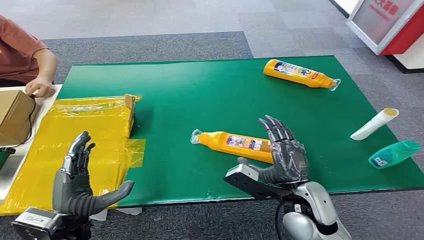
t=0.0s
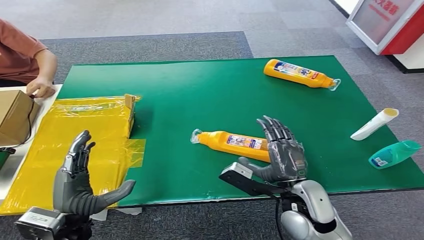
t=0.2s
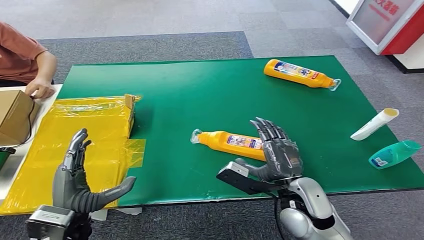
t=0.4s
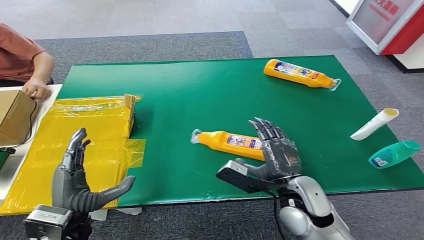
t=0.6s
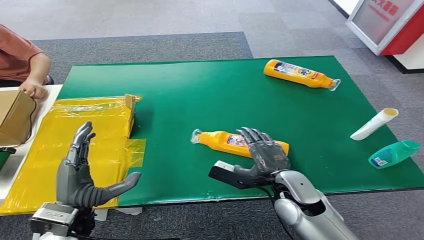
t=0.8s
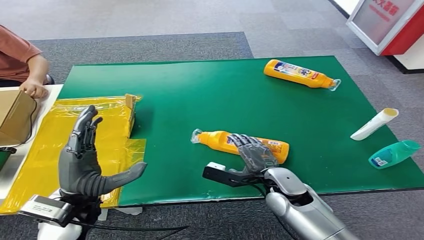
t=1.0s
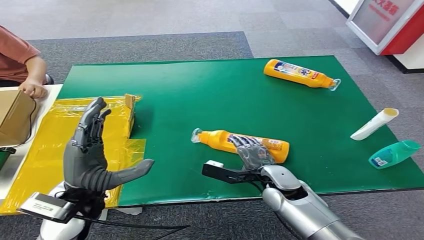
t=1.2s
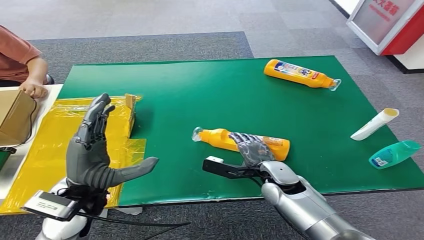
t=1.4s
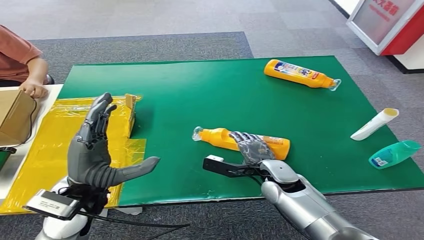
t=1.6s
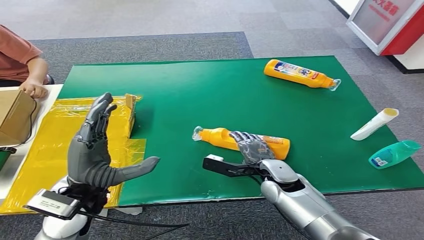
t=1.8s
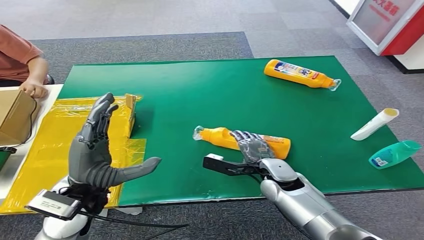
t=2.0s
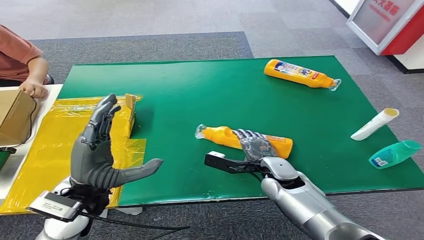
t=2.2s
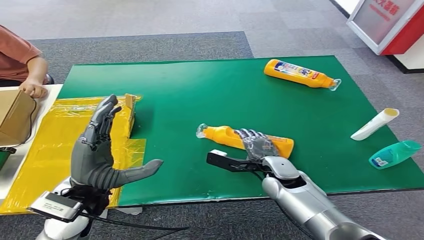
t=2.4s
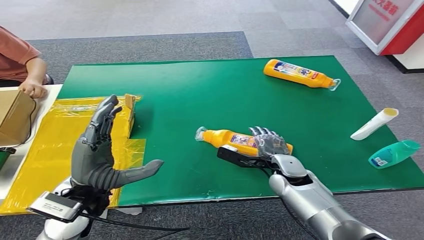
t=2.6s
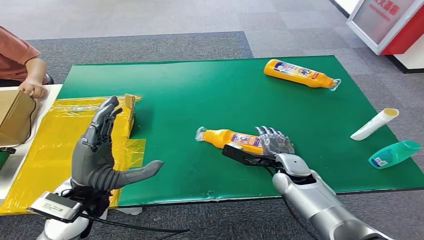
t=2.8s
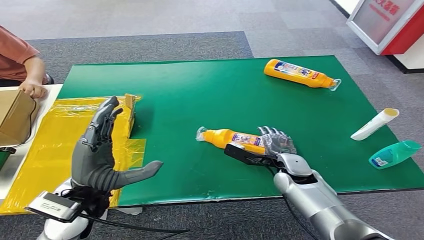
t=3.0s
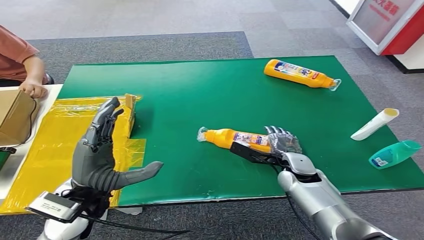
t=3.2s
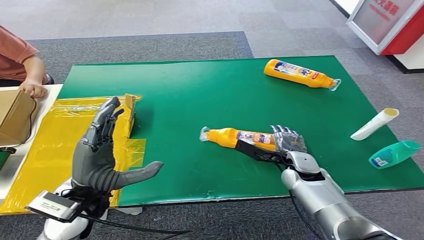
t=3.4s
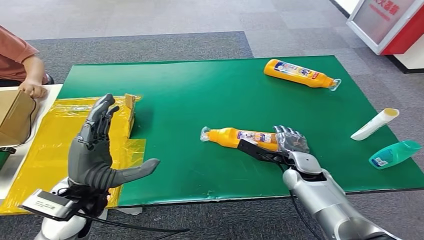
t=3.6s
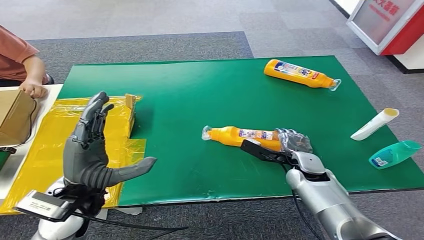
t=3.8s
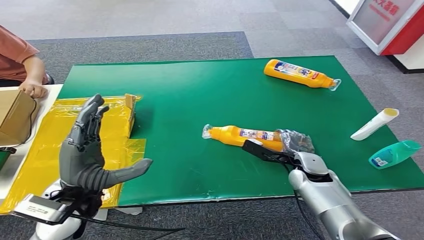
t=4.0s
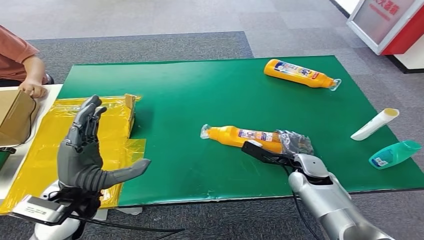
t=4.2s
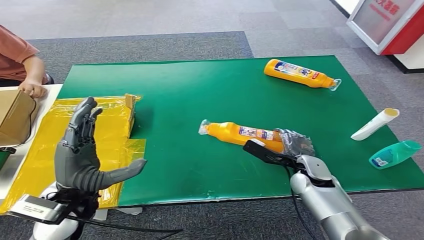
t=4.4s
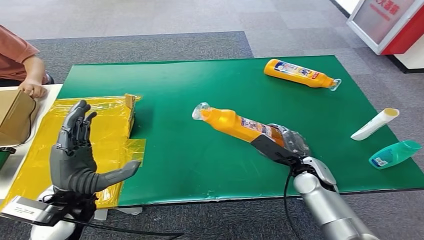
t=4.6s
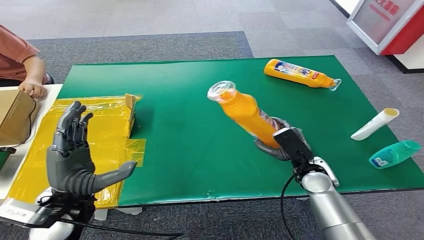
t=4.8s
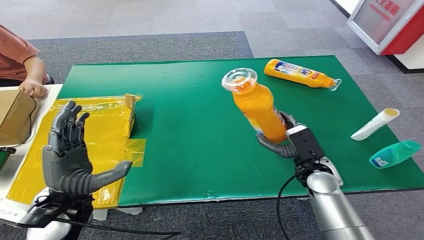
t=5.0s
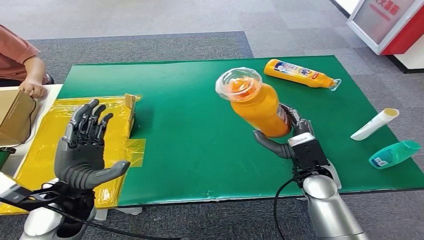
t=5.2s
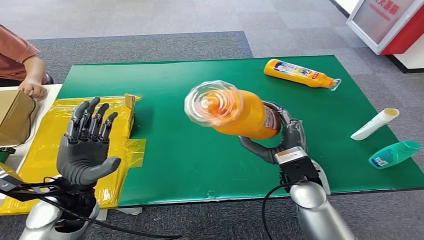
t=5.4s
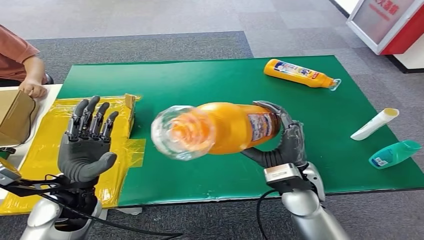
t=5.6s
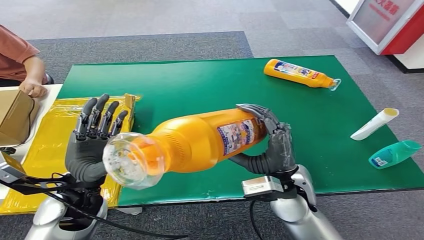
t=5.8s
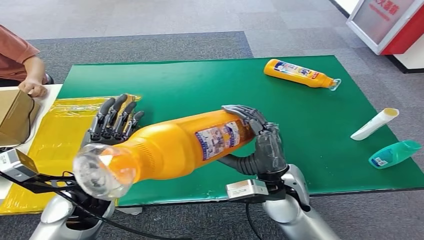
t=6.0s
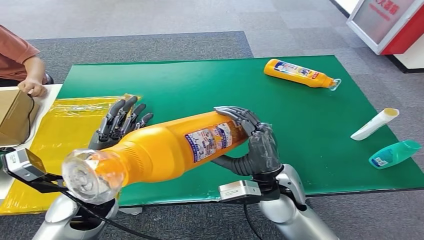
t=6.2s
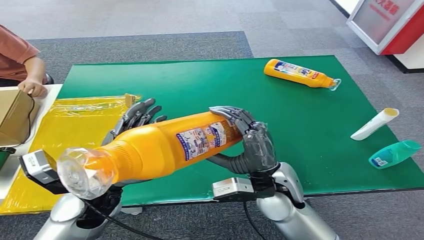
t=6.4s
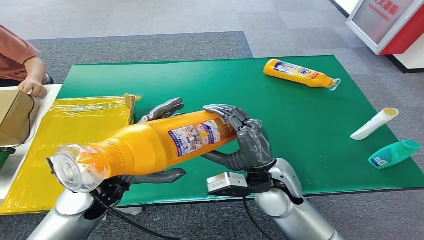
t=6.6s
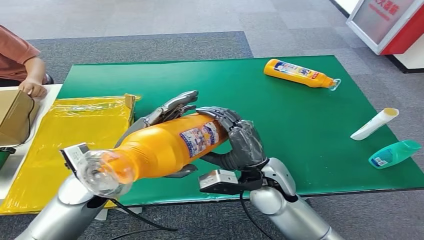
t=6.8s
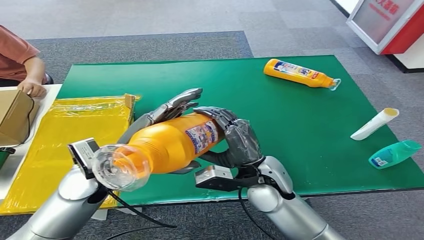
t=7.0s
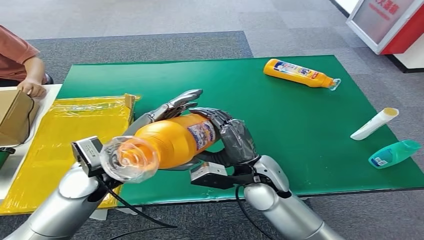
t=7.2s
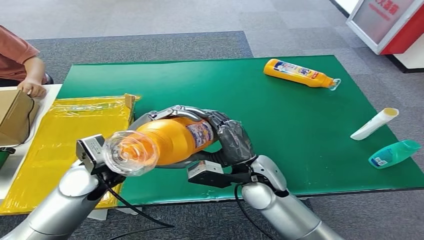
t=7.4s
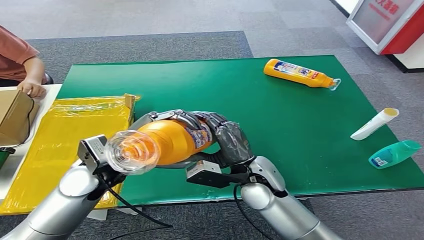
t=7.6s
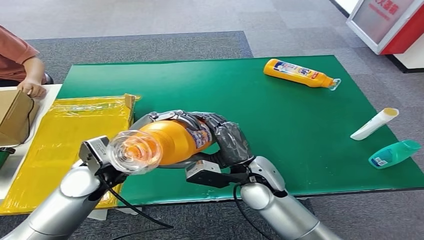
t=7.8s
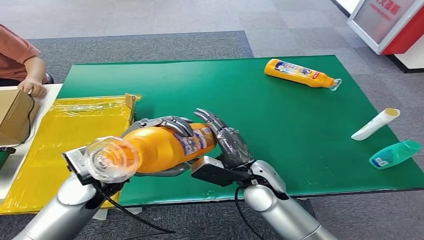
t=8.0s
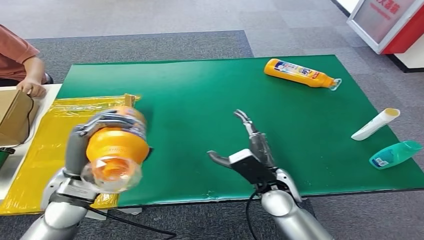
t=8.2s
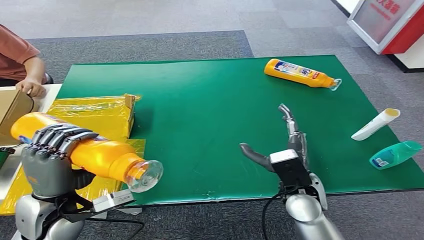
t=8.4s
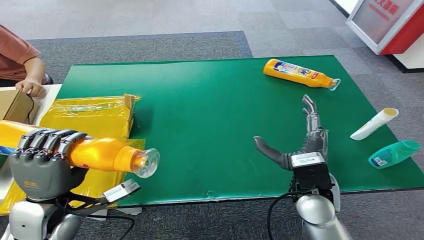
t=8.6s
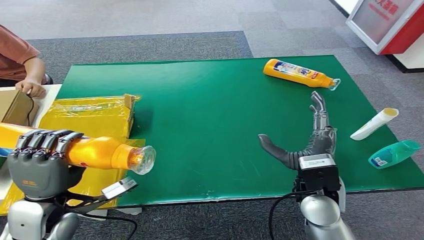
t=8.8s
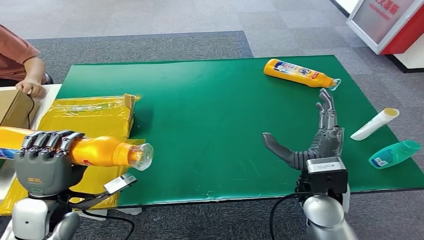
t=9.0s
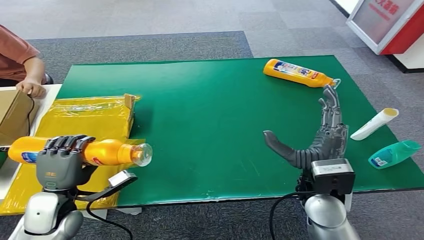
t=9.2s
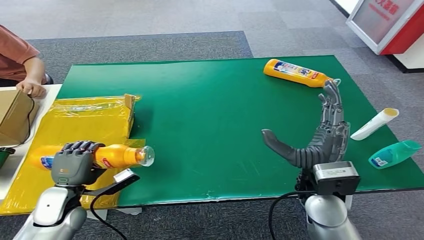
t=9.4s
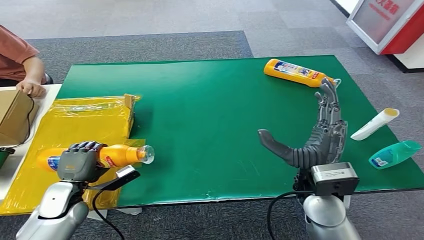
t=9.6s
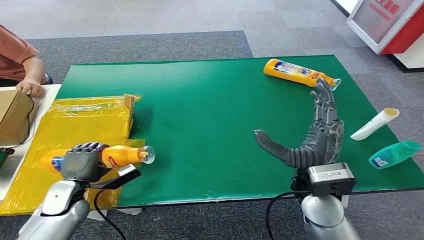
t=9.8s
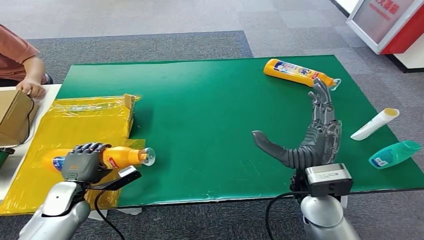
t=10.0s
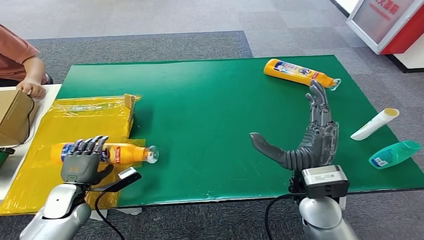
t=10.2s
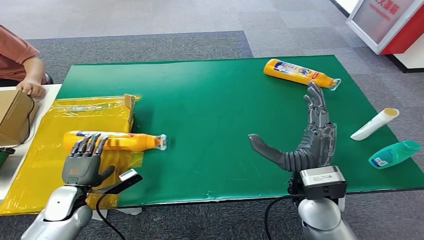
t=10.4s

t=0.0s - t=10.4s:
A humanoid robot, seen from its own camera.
Step, t=0.0s - t=4.8s: Pick up the bottle from the table.
Step, t=5.0s - t=10.4s: Turn the bottle to the front side.
t=1.4s - t=3.0s: The hands make only small movements.
t=3.0s - t=4.4s: The hands move only a little.
t=9.0s - t=10.4s: The left hand travels downward by roughly 15 cm.
